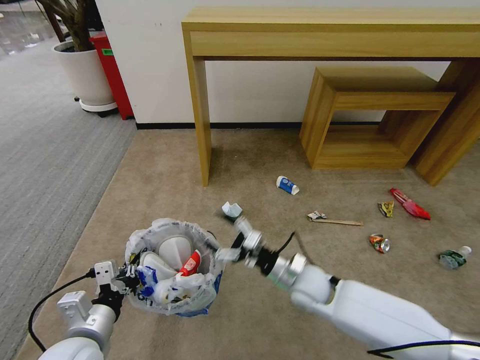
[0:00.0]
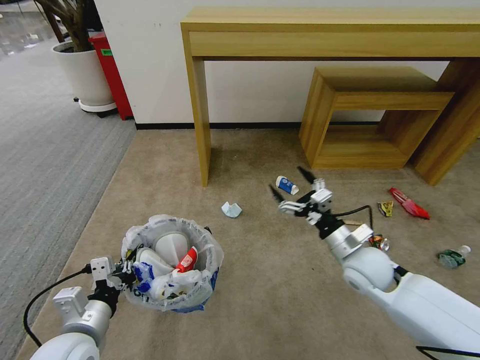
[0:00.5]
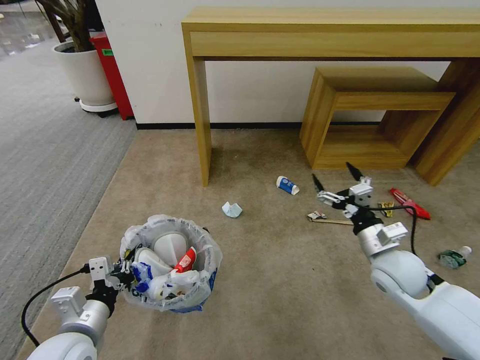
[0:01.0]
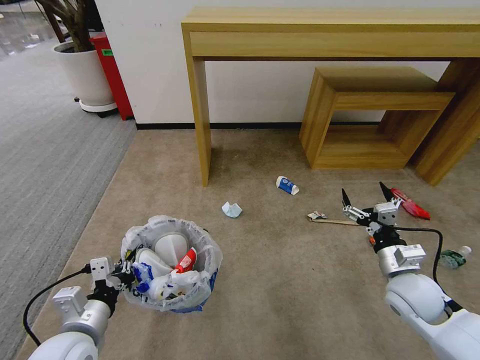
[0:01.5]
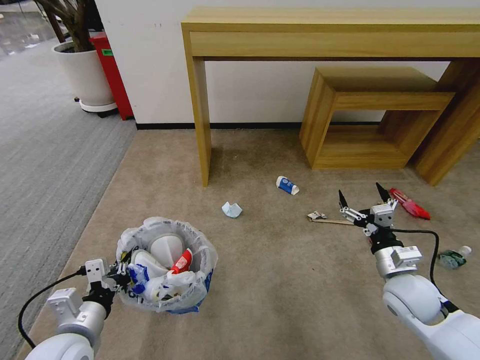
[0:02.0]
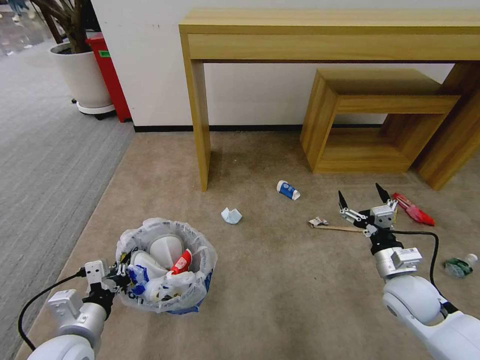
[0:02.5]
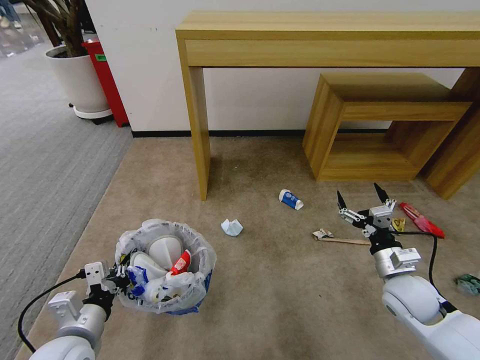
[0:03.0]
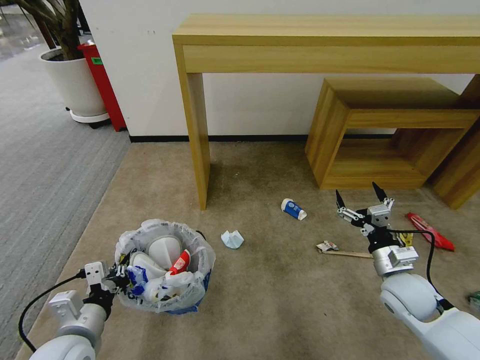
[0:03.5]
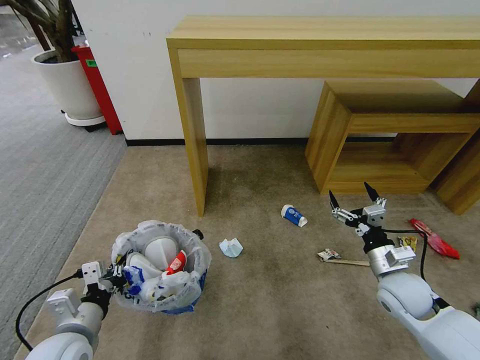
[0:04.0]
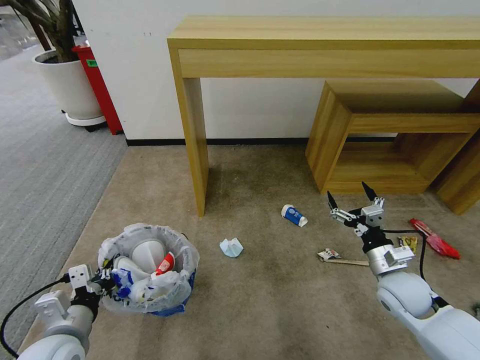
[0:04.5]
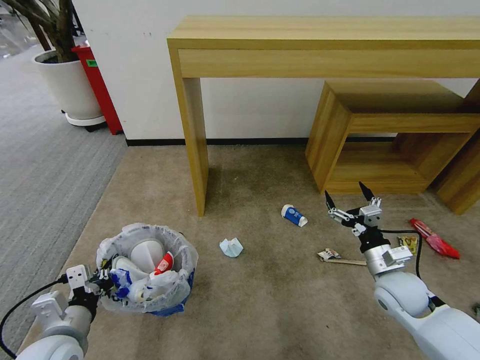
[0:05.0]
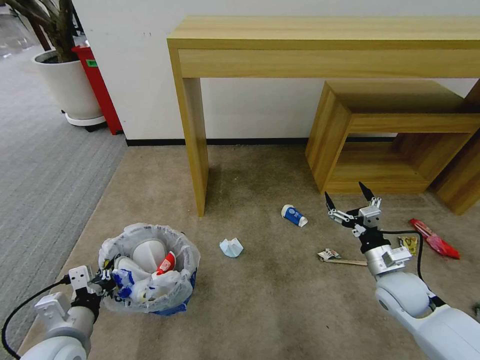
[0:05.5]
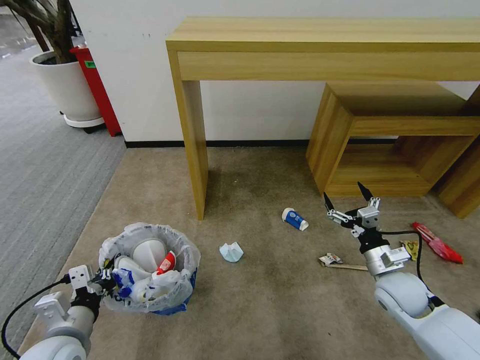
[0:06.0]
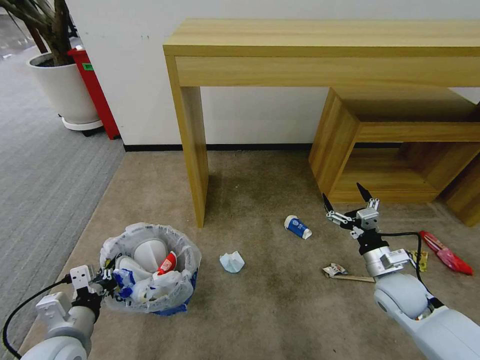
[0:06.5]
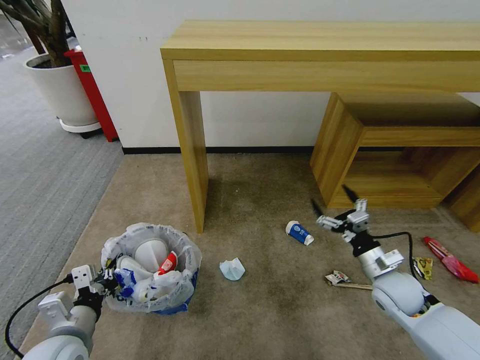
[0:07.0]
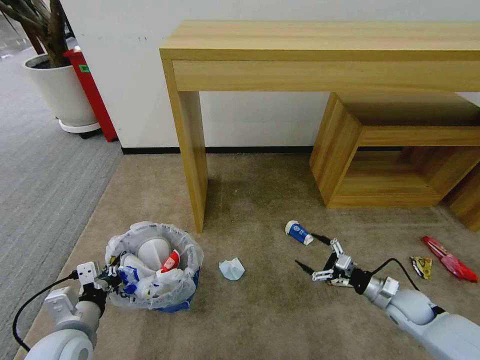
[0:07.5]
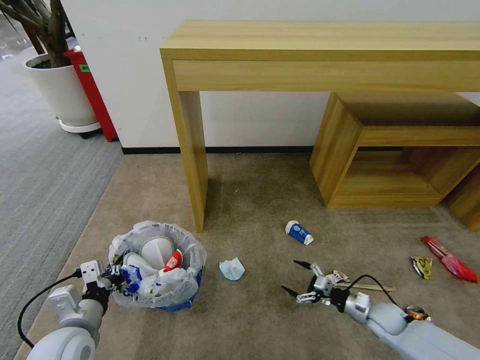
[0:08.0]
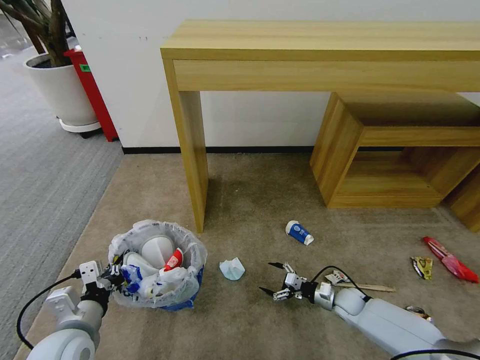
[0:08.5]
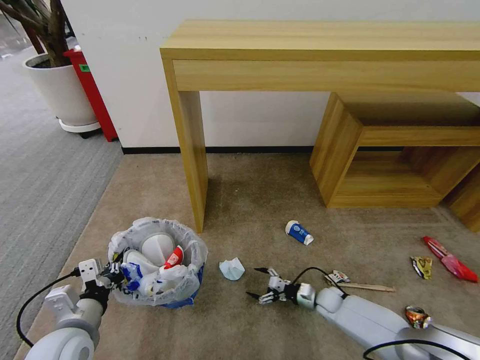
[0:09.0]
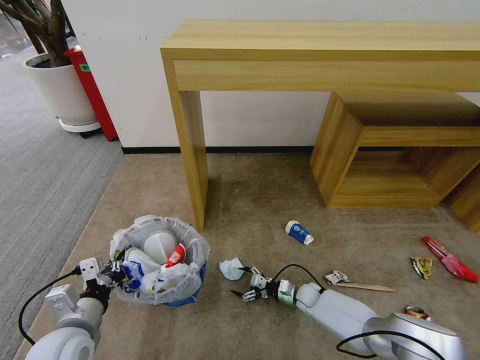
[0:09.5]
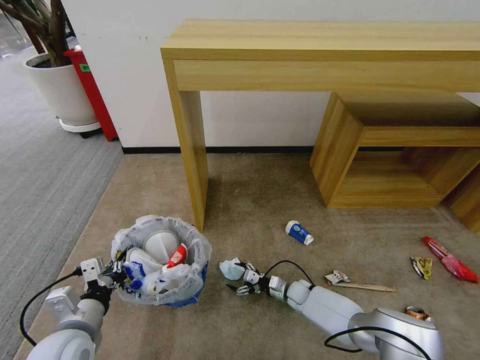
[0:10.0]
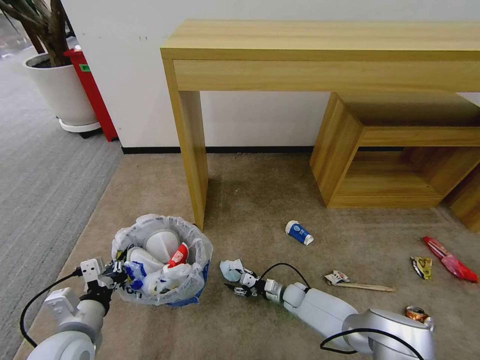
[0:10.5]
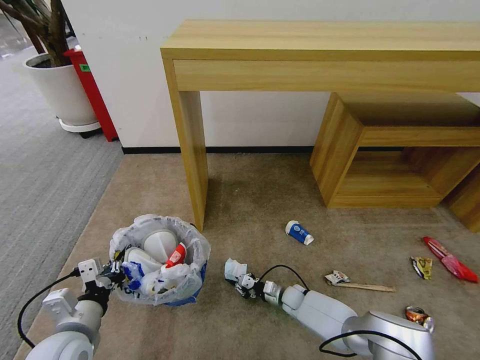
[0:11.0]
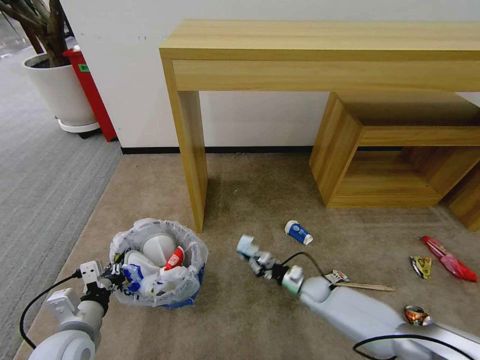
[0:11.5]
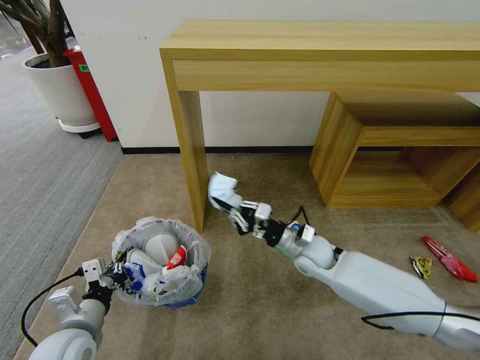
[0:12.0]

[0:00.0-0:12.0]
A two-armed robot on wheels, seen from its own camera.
Task of the whole recording: Pick up the trash bin and place the garbage on the floor into it.
0:00.0 to 0:02.0: The right gripper moves to the right, some 20 cm.
0:04.0 to 0:06.0: The grippers move only a little.
0:06.0 to 0:08.0: The right gripper goes some 15 cm downward.
0:08.0 to 0:10.0: The right gripper shifts about 25 cm to the left, forward and downward.
0:10.0 to 0:12.0: The right gripper moves upward, approximately 25 cm, and closes its fingers.

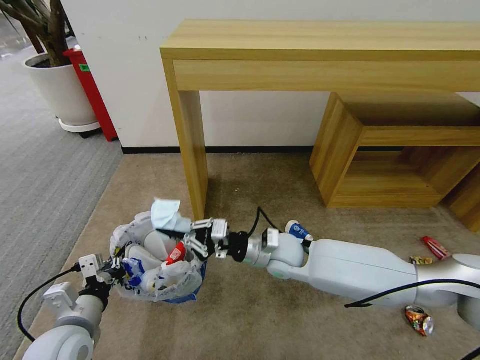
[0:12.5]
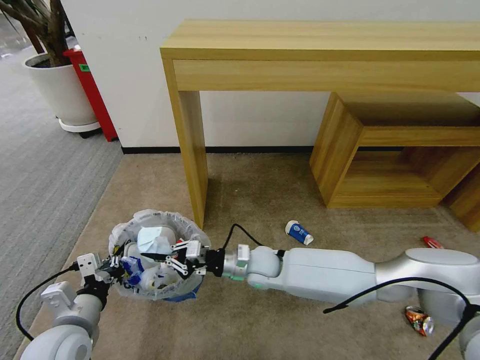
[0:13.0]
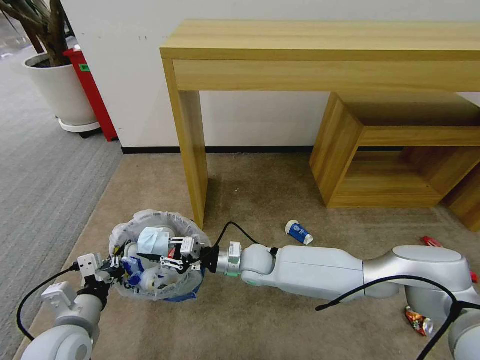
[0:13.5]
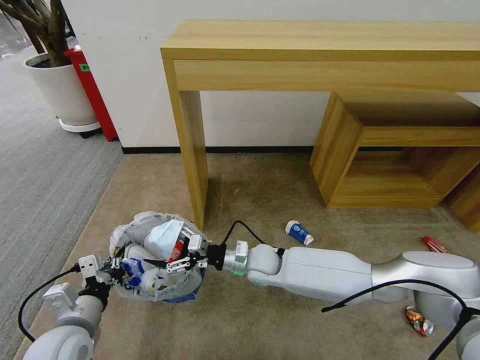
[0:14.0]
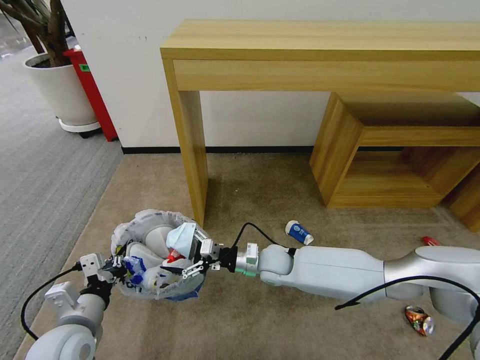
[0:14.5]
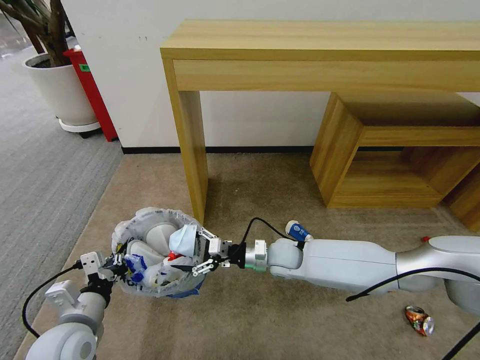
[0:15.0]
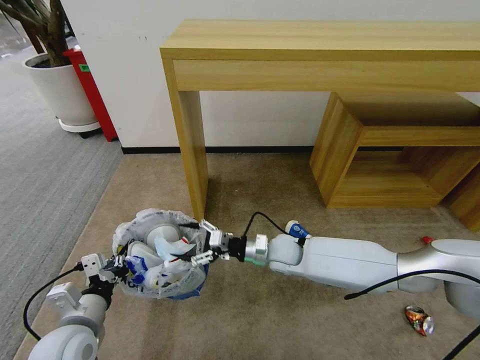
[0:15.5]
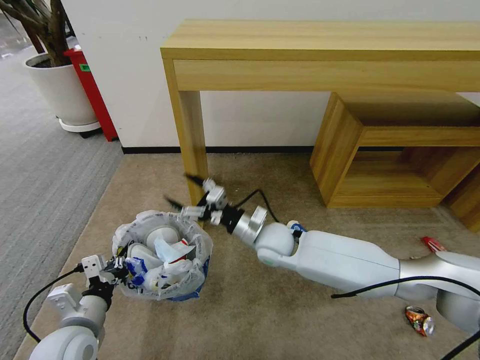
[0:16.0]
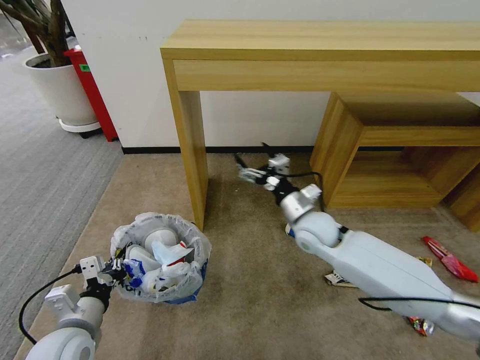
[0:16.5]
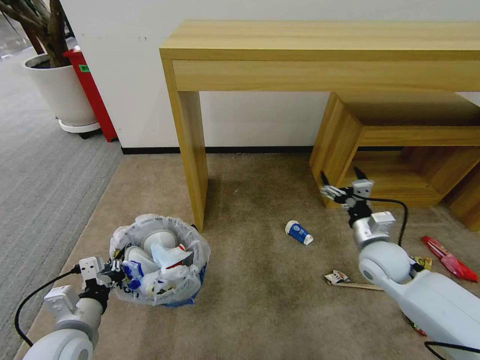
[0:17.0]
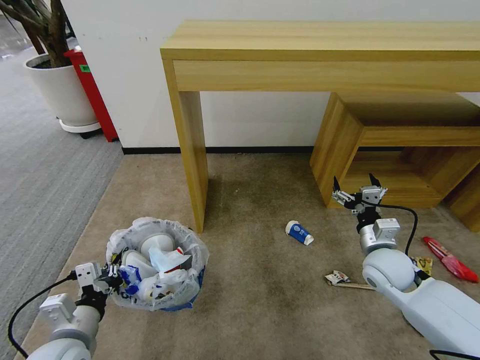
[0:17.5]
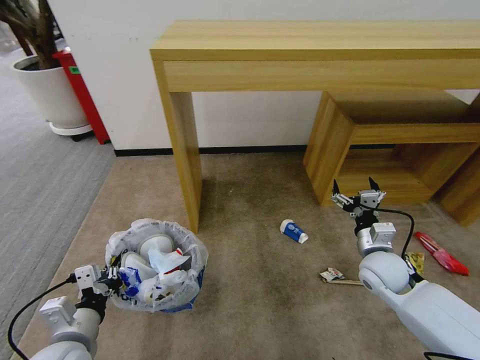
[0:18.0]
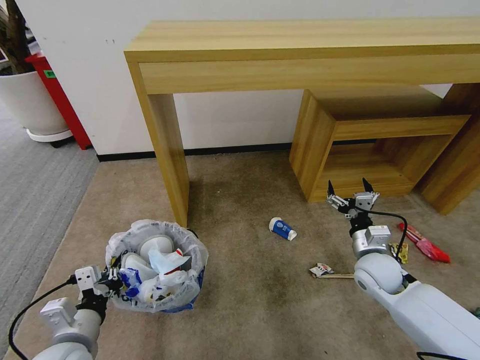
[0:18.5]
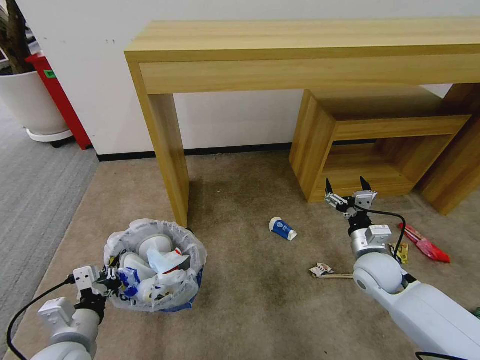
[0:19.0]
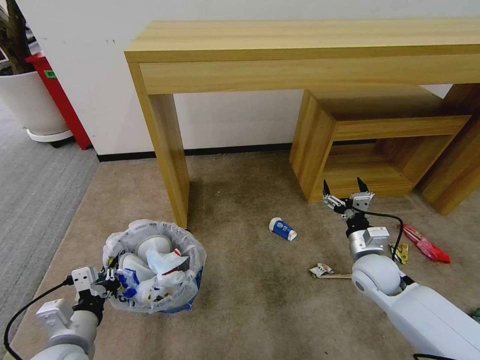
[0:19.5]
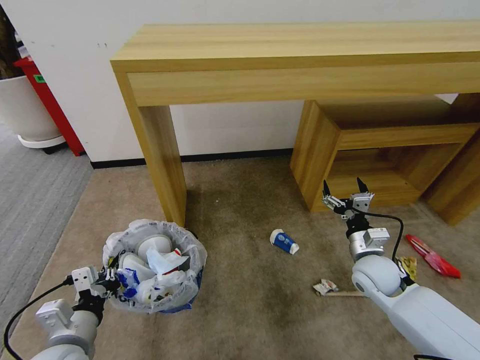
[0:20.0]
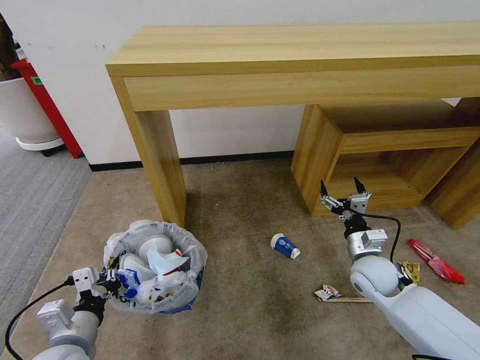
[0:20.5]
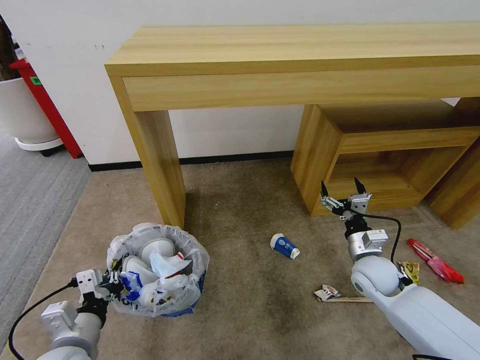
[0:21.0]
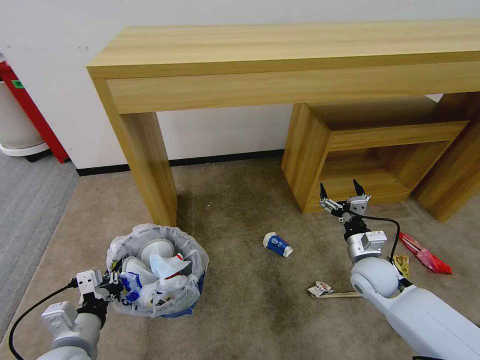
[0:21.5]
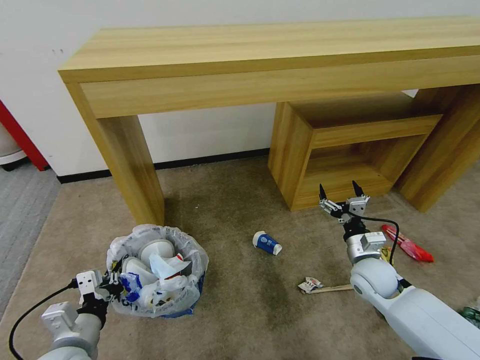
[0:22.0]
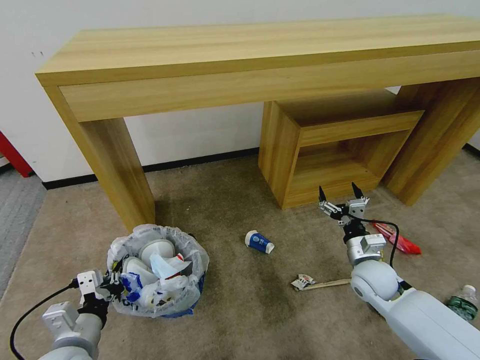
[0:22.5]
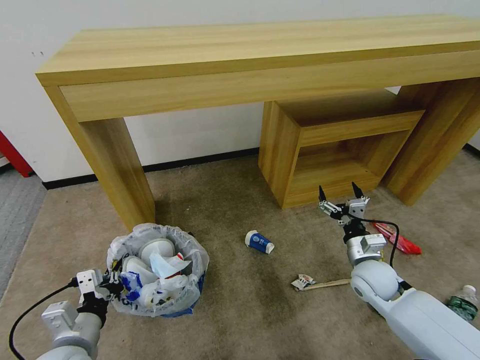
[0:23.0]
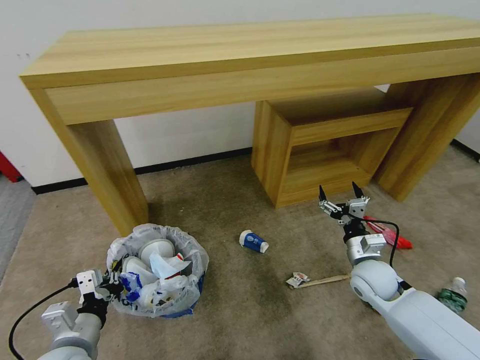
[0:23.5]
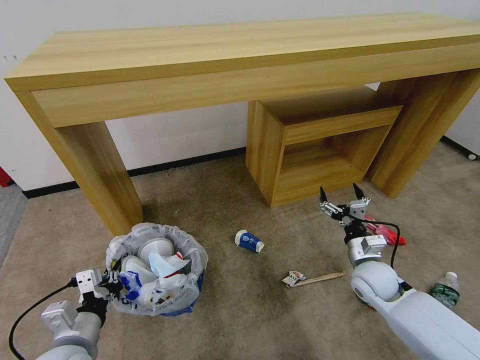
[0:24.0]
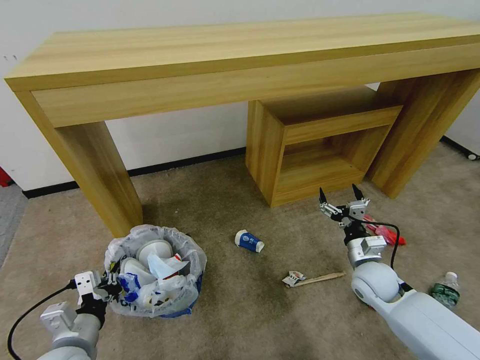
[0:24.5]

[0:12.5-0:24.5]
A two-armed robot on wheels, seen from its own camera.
Task of the whole recording: Pick up the trash bin and place the garbage on the floor into it.
0:12.5 to 0:14.5: The right gripper goes roughly 5 cm downward, and opens its fingers.
0:14.5 to 0:16.5: The right gripper moves upward and to the right, approximately 15 cm.
0:16.5 to 0:18.5: The right gripper goes some 20 cm to the right, downward and backward.
0:22.5 to 0:24.5: The two grippers keep their place.

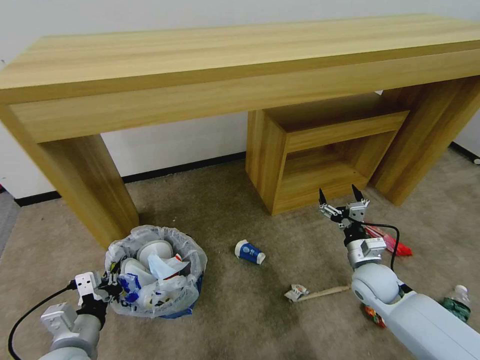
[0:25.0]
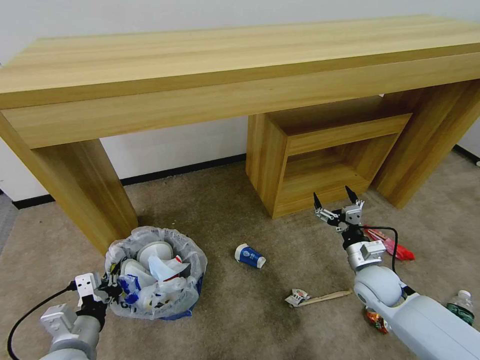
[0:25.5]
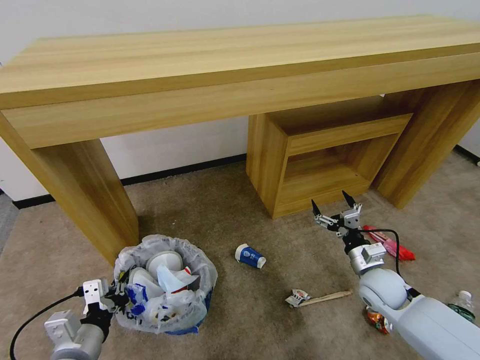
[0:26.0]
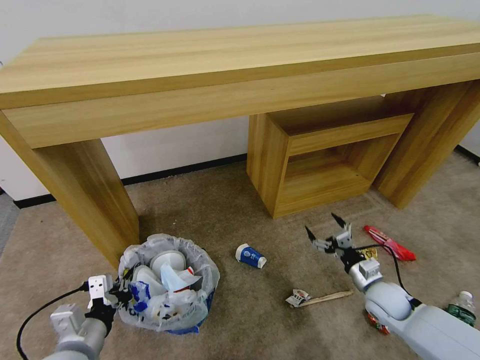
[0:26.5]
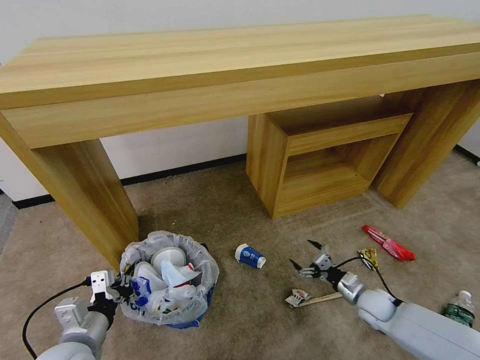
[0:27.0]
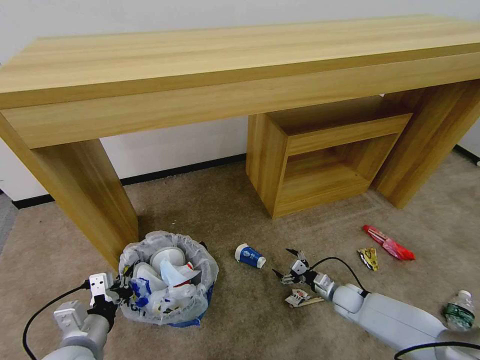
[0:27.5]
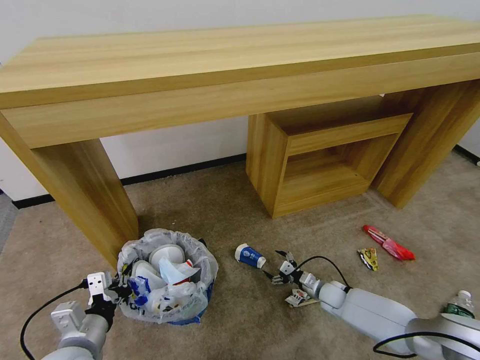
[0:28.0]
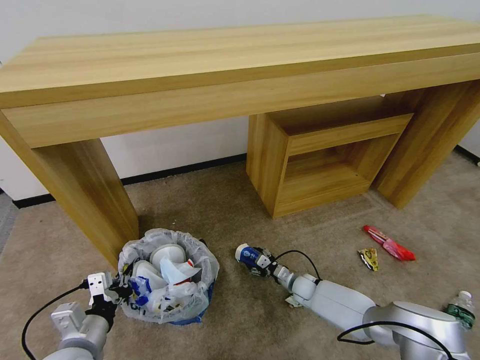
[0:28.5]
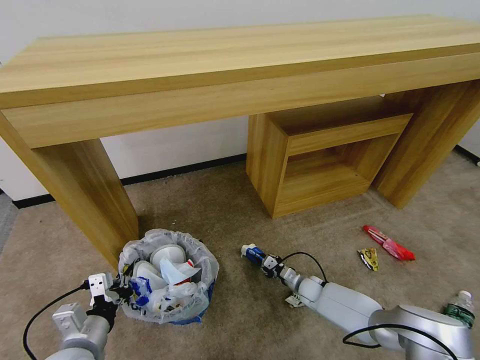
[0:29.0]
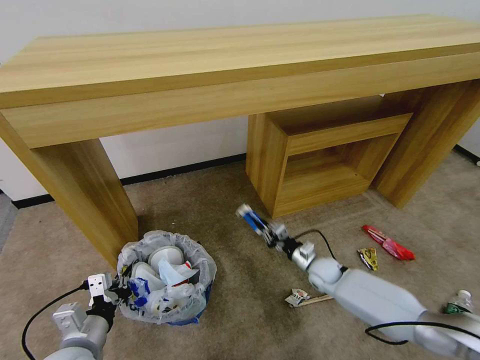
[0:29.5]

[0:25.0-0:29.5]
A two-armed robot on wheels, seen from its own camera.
Task of the whole recording: Pick up the trash bin and place the garbage on the floor into it.
0:25.0 to 0:27.0: The right gripper shifts roughly 15 cm downward and to the right.
0:27.0 to 0:29.5: The right gripper shifts approximately 15 cm to the left and forward, and closes up.
